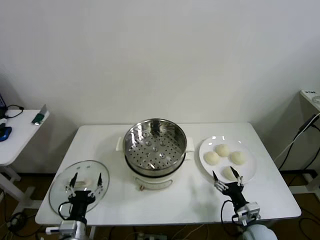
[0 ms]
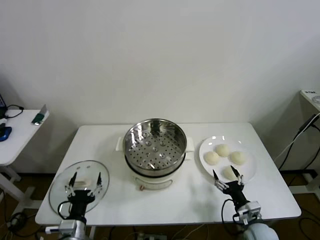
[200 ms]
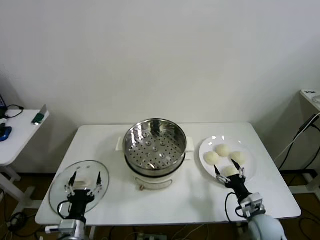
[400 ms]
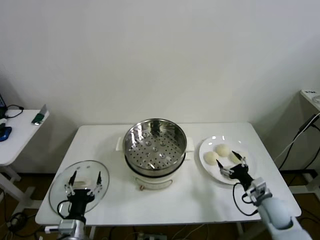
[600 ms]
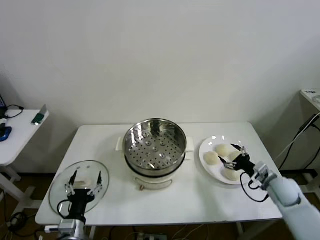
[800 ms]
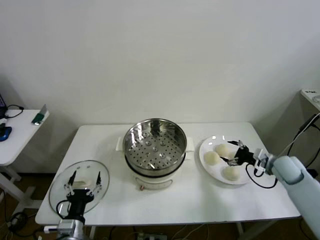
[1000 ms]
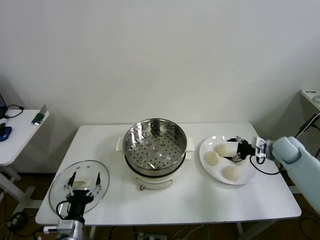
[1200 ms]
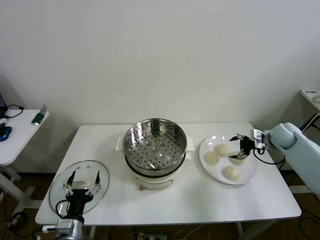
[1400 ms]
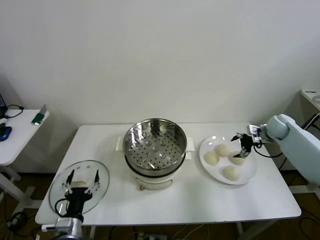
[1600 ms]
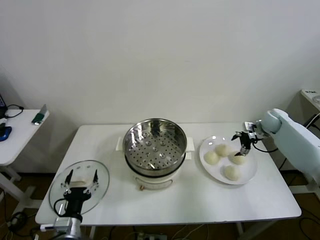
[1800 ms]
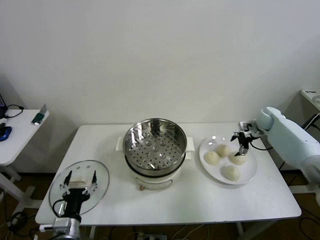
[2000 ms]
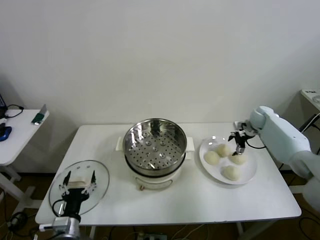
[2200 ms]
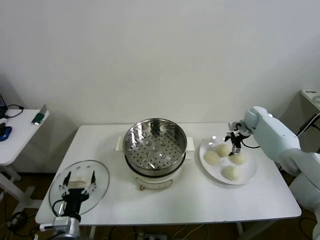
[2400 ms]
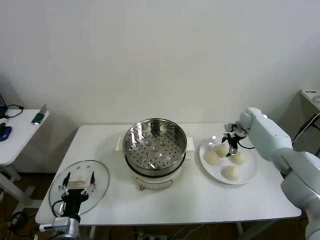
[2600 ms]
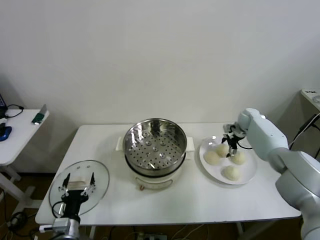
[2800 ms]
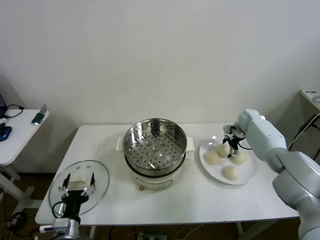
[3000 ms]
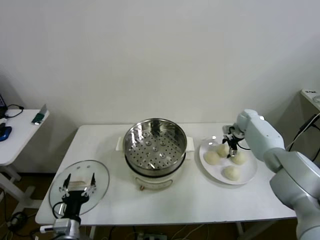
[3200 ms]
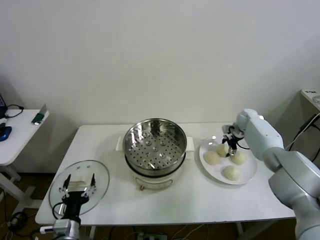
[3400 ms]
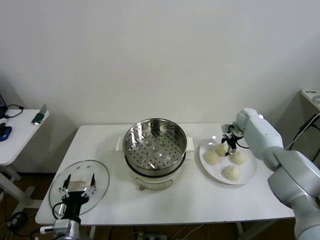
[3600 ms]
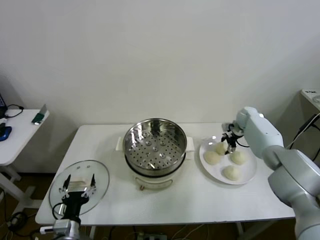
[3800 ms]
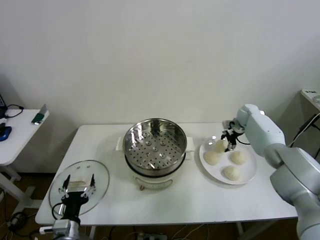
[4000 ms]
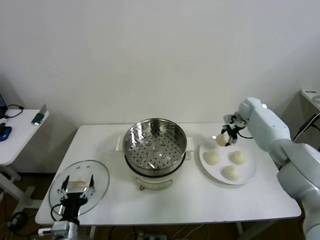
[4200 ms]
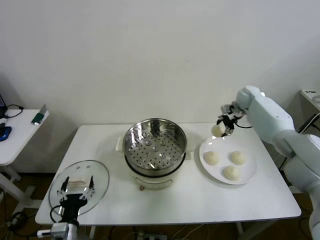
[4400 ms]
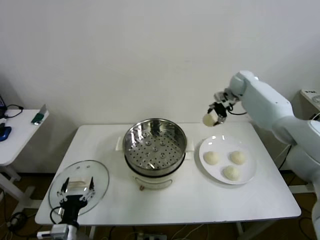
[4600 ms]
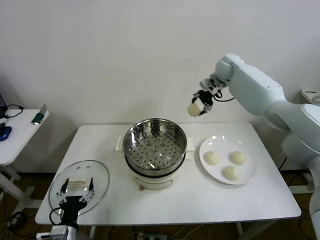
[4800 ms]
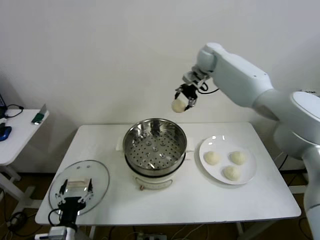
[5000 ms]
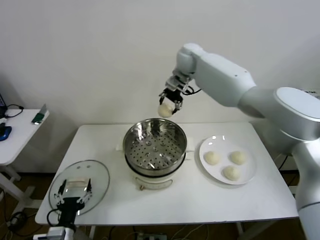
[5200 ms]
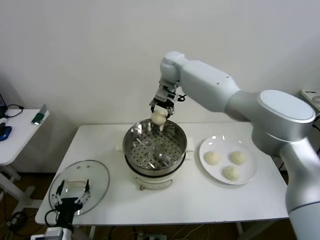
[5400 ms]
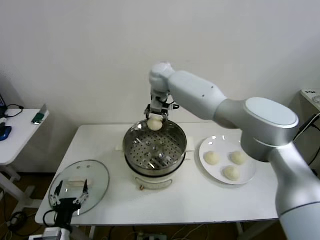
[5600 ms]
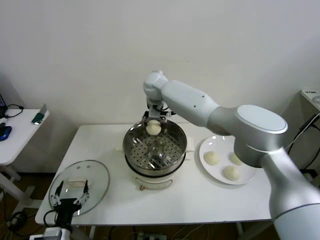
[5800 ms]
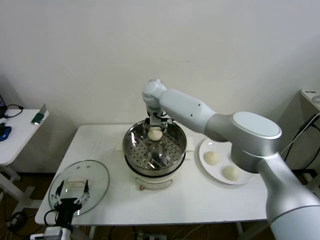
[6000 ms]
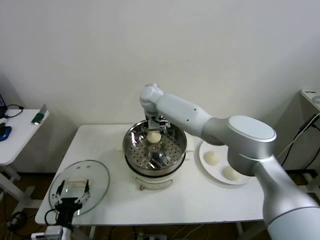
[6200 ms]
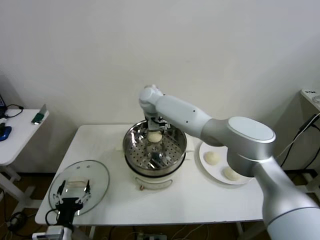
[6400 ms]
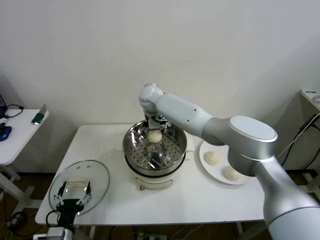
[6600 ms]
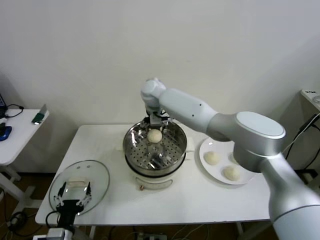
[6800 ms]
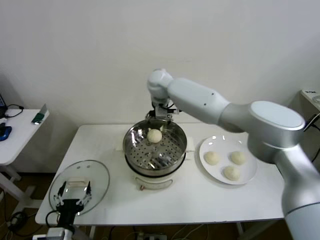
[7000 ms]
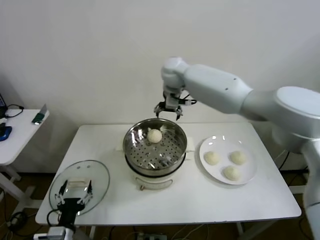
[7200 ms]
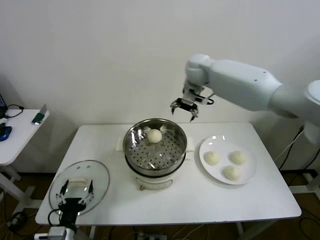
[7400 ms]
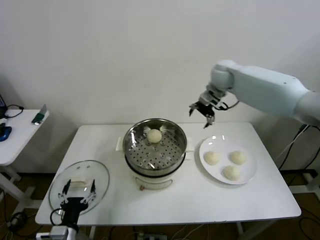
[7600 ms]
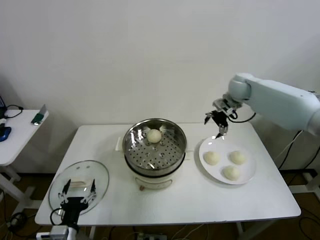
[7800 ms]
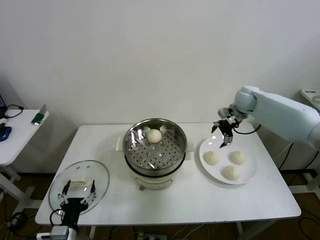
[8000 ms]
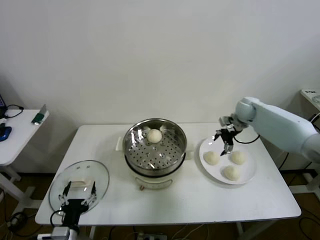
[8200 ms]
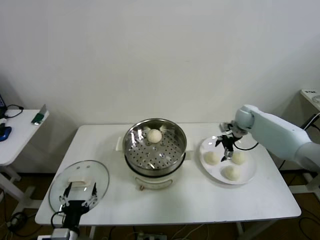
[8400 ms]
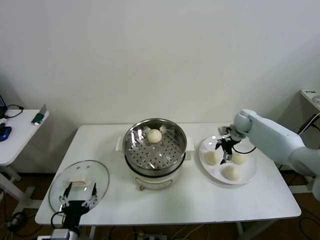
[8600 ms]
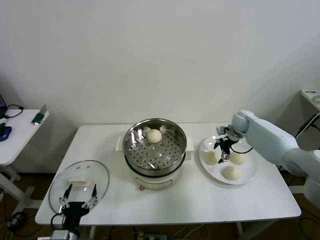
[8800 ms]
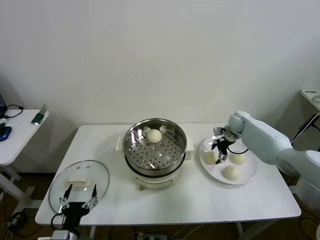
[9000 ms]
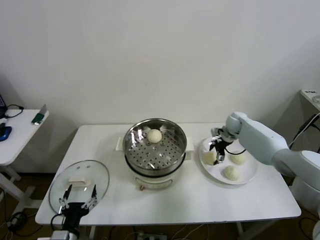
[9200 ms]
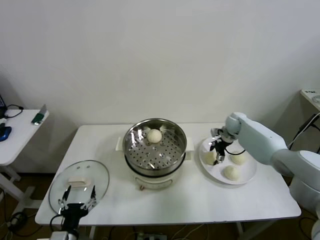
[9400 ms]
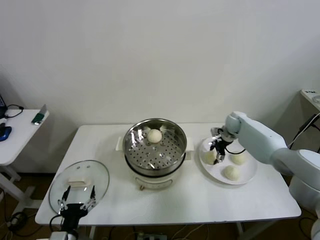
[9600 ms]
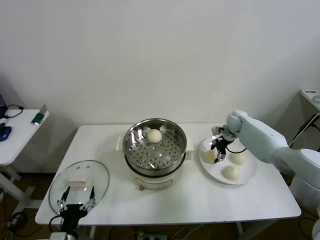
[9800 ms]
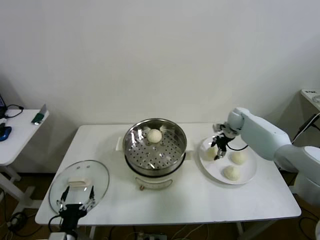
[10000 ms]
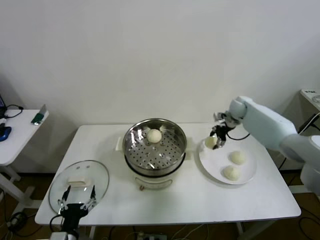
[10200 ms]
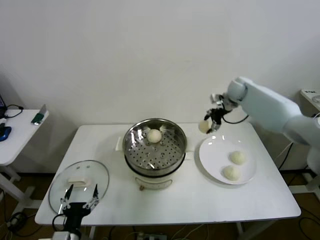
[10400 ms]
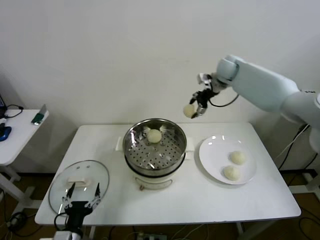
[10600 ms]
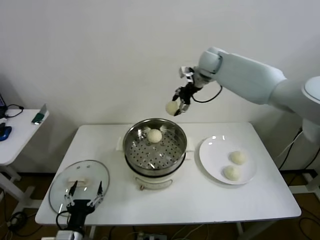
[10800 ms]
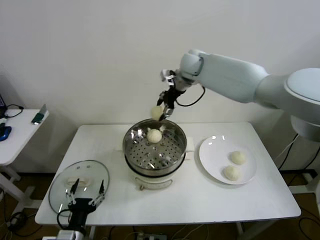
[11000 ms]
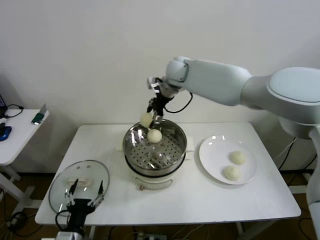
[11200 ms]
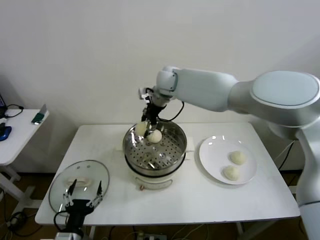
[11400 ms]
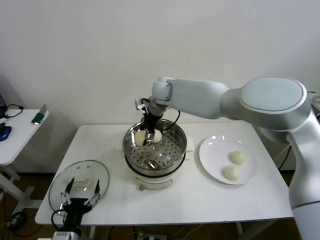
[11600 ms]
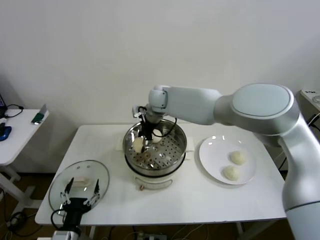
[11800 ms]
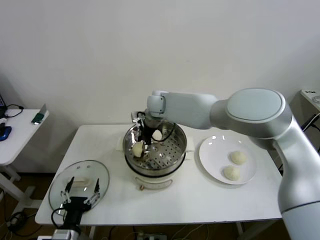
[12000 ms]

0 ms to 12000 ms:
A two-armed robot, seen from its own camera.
Step, 0 ms to 3200 ms: Grasp the baozi in the plate with right gripper.
Step, 3400 ms to 6800 ms: Place the baozi on the steamer with right gripper.
Step, 7000 ms to 9600 ms: Grasp the baozi in the plate with right gripper.
1600 ms to 3000 ms: The right gripper is displaced forward, to the left and downward by approximately 10 cm.
3000 ms to 4400 ms: The right gripper shifts some 15 cm upward, and closes up.
4400 ms to 6000 ms: The right gripper goes approximately 35 cm to the left.
6000 ms to 7600 ms: The right gripper heads to the right, covering approximately 30 cm, and opens up.
7600 ms to 9000 ms: The right gripper is displaced downward by some 20 cm.
9000 ms to 10400 ms: The right gripper moves upward, some 20 cm, and closes up.
10400 ms to 12000 ms: The right gripper goes some 30 cm to the left.

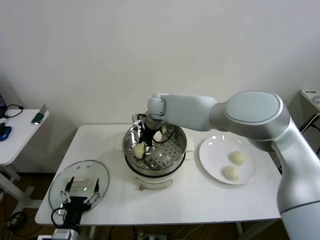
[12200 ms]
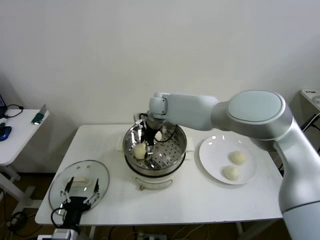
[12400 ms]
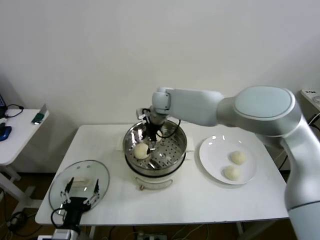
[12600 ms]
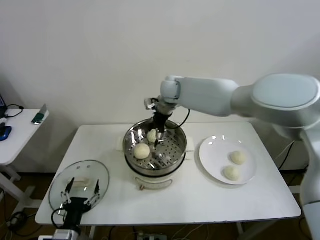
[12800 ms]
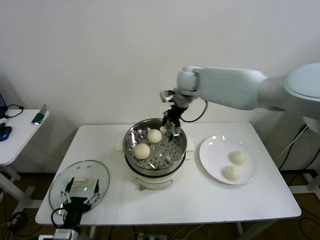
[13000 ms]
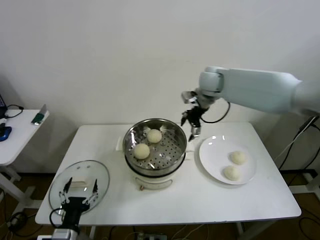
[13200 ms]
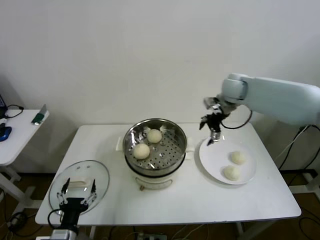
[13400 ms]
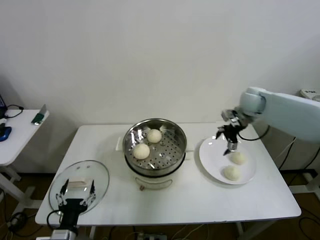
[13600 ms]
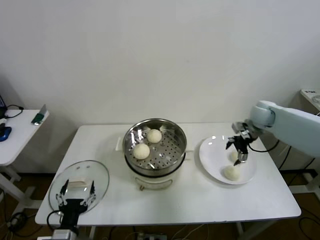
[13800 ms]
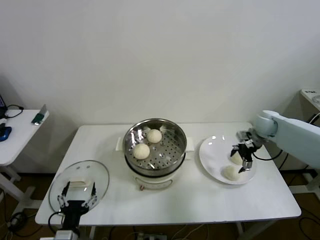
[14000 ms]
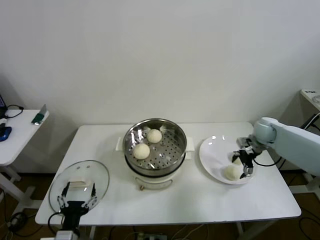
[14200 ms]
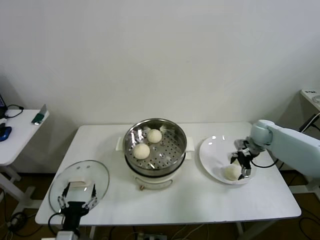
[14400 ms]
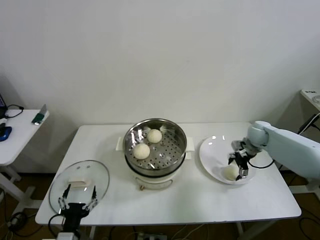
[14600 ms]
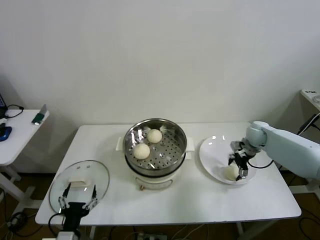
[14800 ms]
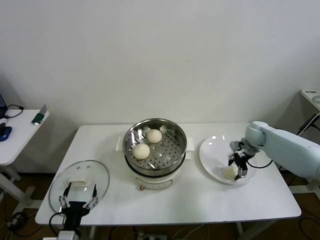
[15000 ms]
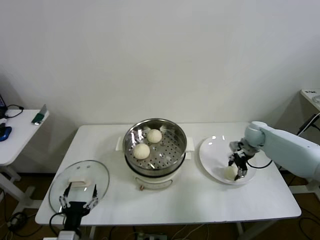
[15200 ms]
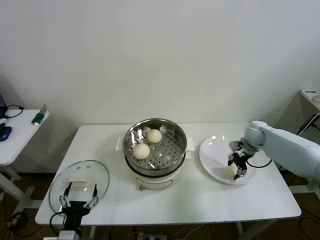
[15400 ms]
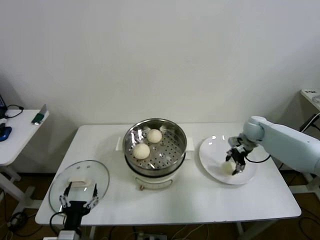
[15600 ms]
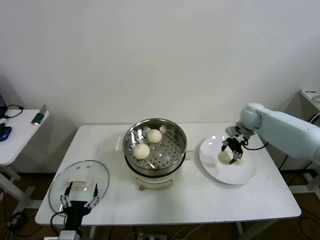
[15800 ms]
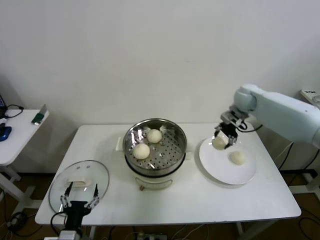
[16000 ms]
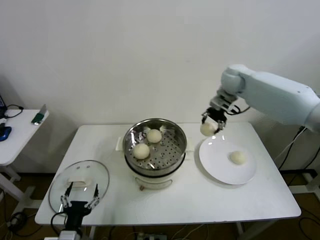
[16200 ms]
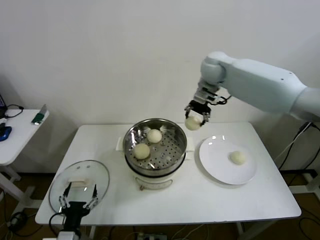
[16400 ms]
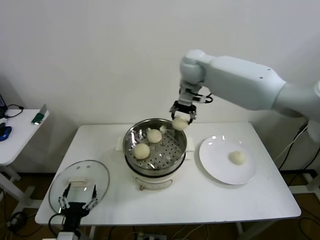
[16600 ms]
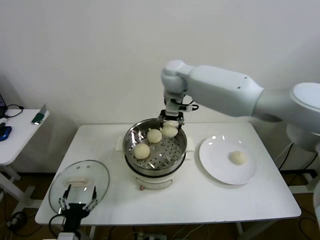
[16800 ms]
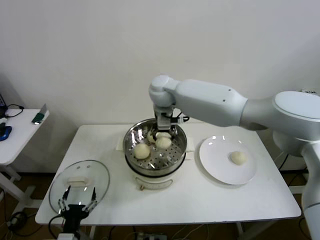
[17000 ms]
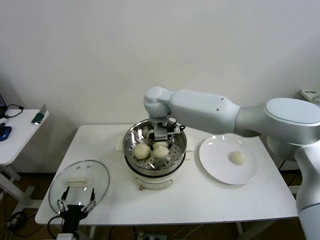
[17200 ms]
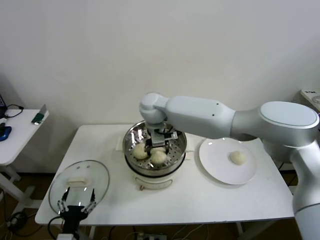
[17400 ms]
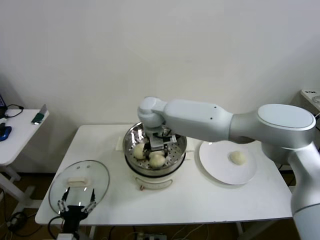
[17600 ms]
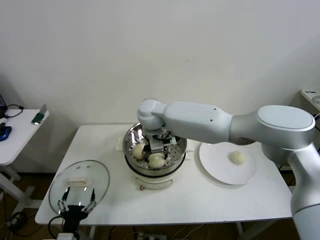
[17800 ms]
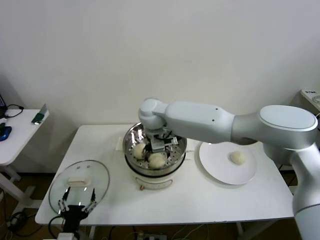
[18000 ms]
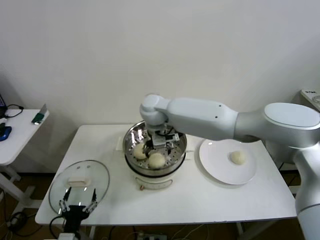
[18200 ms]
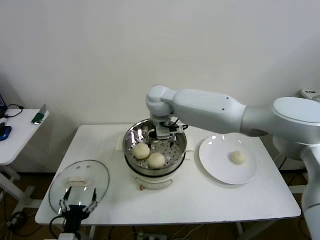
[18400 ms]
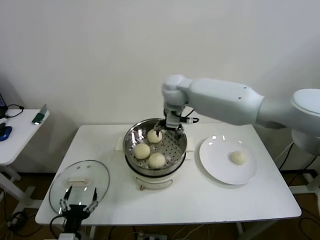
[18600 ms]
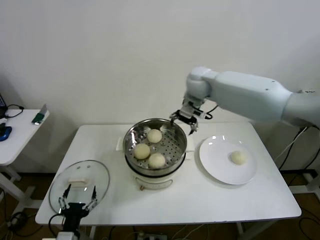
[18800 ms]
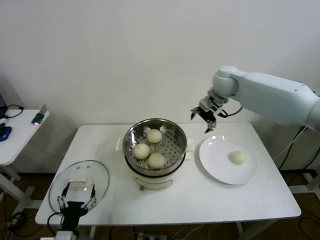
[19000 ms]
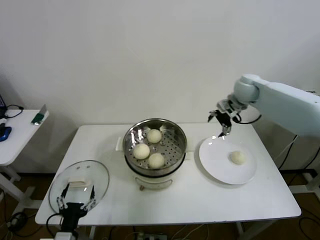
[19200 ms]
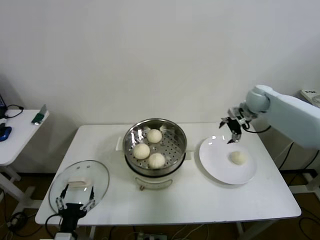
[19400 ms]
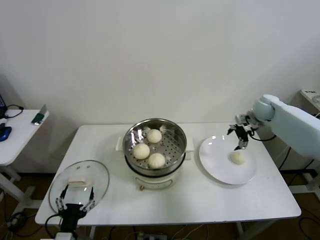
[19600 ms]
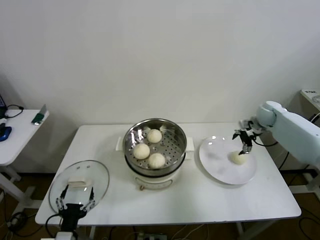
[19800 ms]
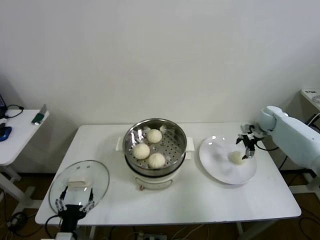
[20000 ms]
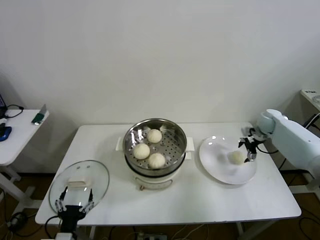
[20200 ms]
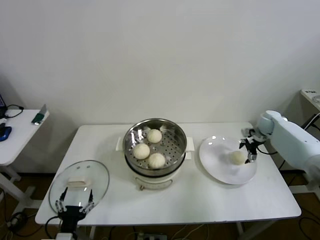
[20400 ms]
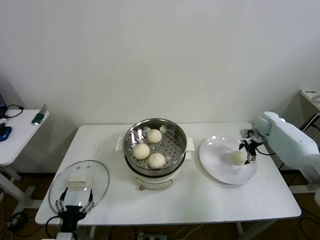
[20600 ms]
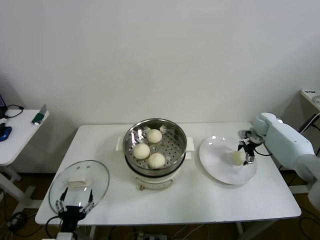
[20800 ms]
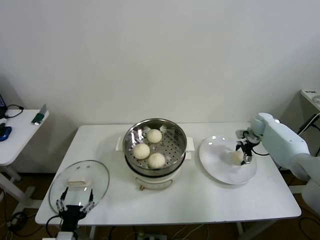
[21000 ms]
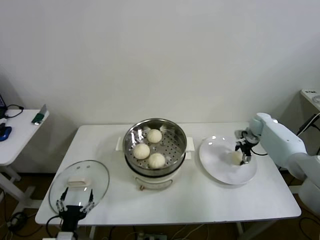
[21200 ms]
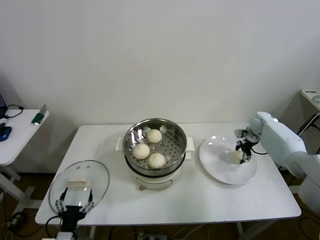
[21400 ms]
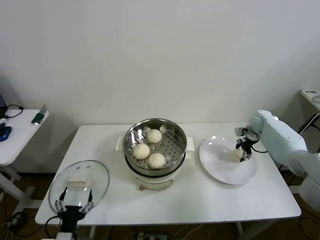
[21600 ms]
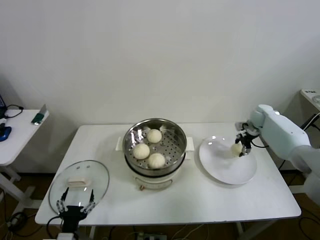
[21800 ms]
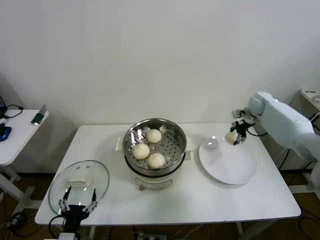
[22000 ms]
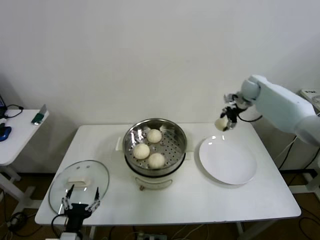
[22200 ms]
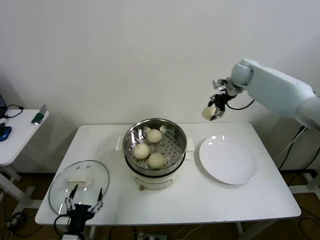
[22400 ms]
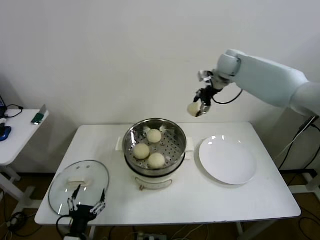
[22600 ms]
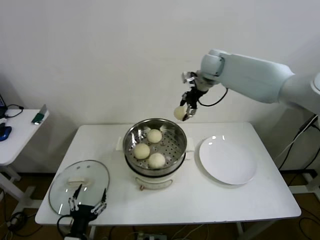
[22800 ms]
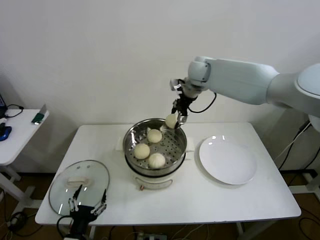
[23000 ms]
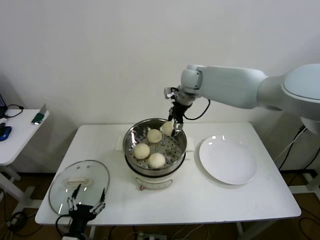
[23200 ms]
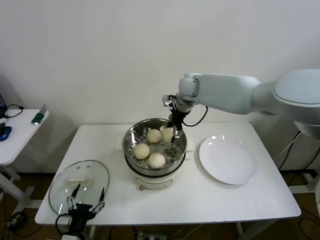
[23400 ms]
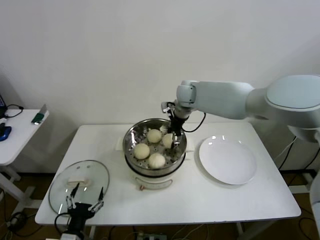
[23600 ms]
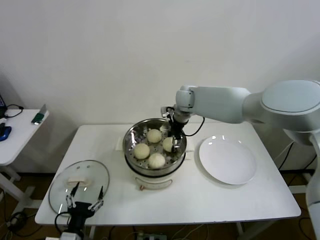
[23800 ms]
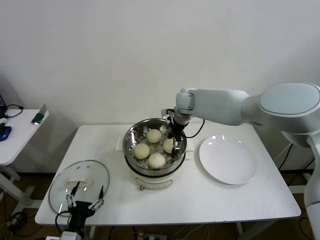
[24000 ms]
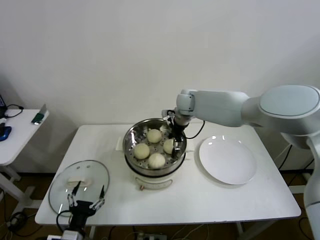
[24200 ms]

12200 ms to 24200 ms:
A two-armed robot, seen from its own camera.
Step, 13000 ms to 15200 ms: Grasp the baozi in the plate with right gripper.
Step, 15400 ms to 18200 ms: Place the baozi on the steamer with right gripper.
Step, 18400 ms to 21600 ms: Grasp the baozi in the plate with right gripper.
12200 ms to 13800 ms: The right gripper heads to the right, covering roughly 40 cm, and opens its fingers.
13800 ms to 15200 ms: The right gripper shifts about 10 cm downward, and closes its fingers.
15200 ms to 16600 ms: The right gripper moves to the left and upward, about 40 cm.
16600 ms to 18200 ms: The right gripper moves to the left, downward and backward, some 20 cm, and opens its fingers.
18200 ms to 19800 ms: The right gripper moves to the right, approximately 40 cm.
19800 ms to 21200 ms: The right gripper shifts some 10 cm downward.
21200 ms to 22600 ms: The right gripper is displaced upward and to the left by roughly 30 cm, and closes up.
22600 ms to 24200 ms: The right gripper goes about 20 cm to the left and downward.
